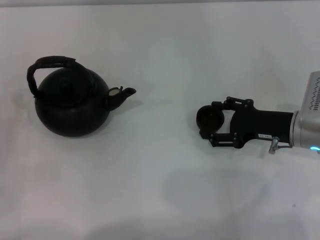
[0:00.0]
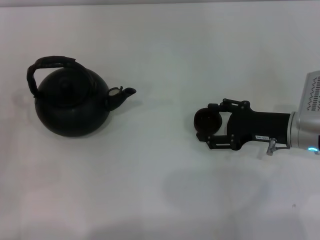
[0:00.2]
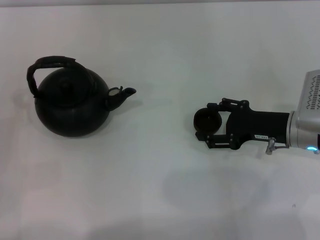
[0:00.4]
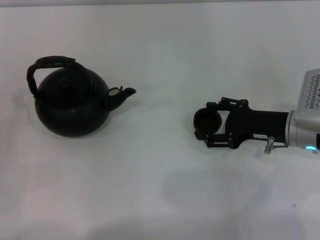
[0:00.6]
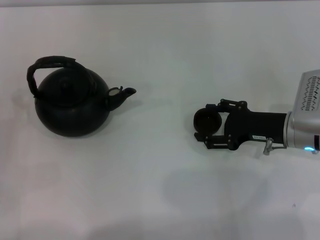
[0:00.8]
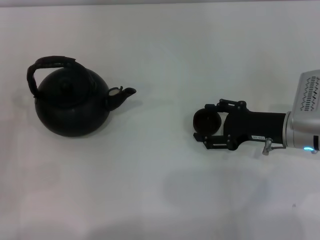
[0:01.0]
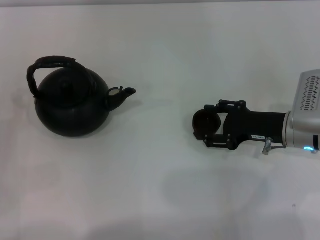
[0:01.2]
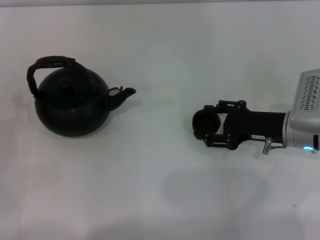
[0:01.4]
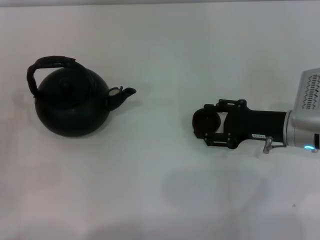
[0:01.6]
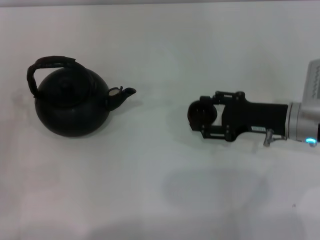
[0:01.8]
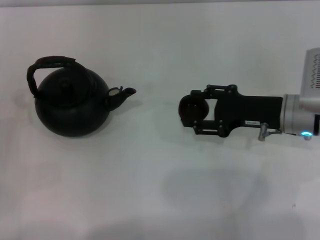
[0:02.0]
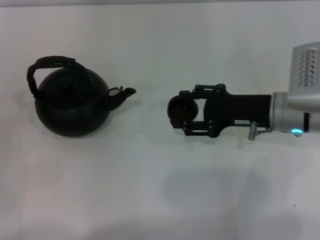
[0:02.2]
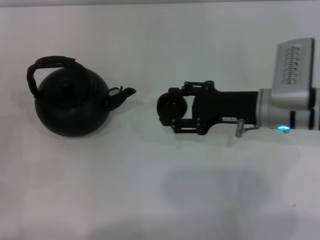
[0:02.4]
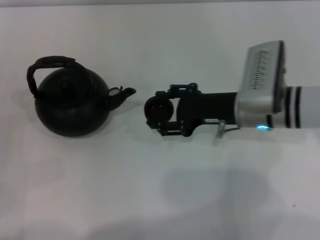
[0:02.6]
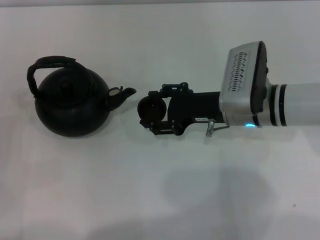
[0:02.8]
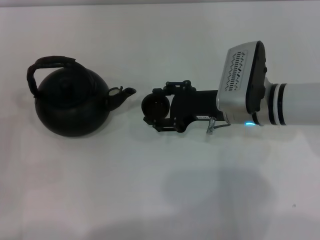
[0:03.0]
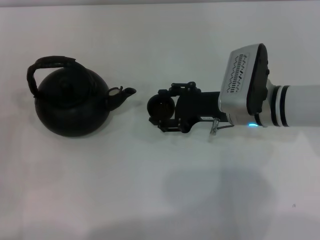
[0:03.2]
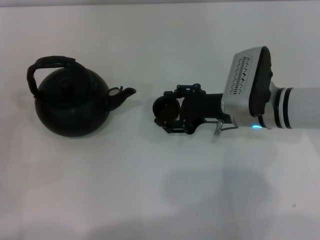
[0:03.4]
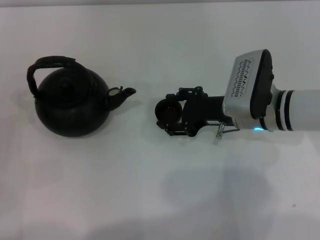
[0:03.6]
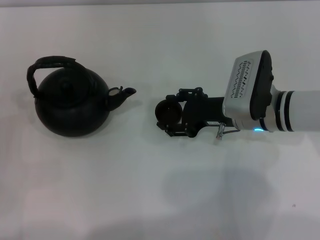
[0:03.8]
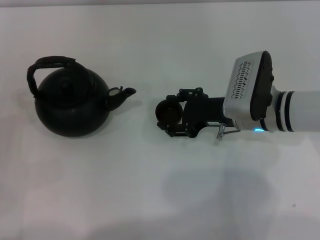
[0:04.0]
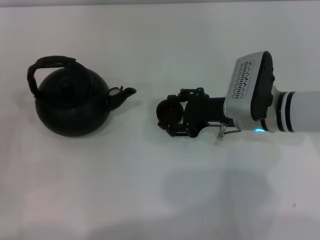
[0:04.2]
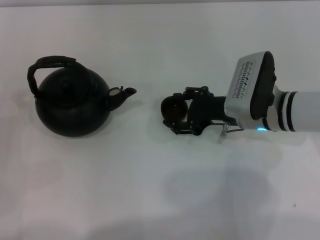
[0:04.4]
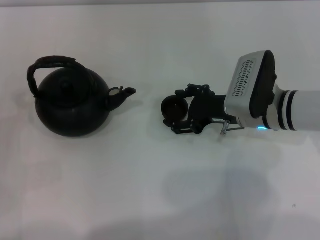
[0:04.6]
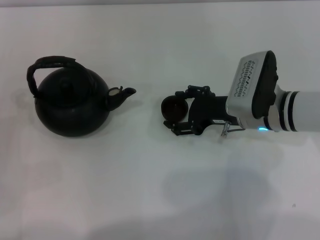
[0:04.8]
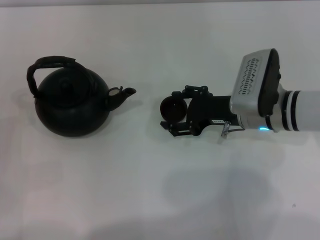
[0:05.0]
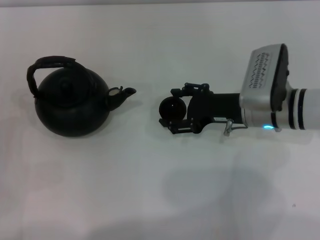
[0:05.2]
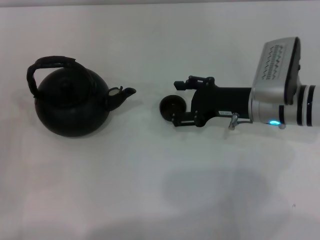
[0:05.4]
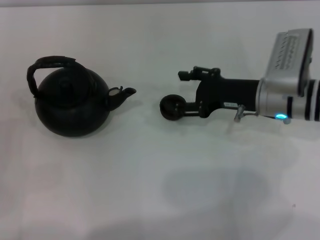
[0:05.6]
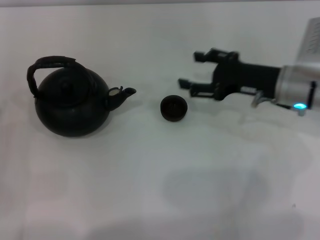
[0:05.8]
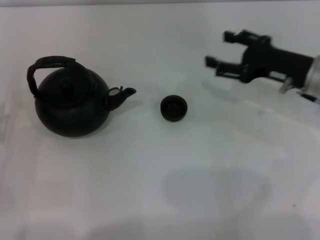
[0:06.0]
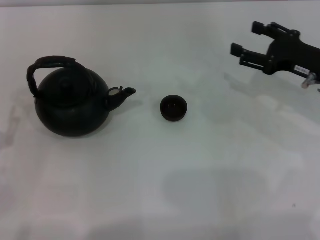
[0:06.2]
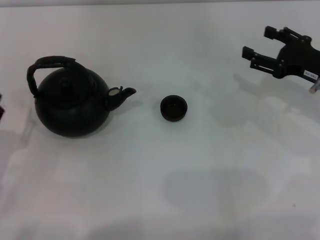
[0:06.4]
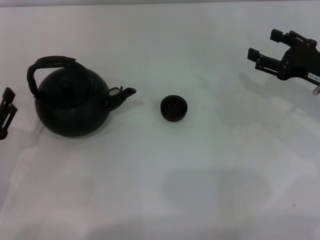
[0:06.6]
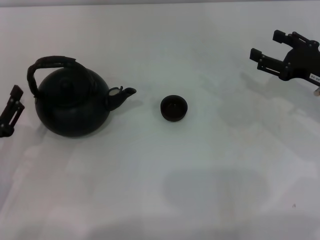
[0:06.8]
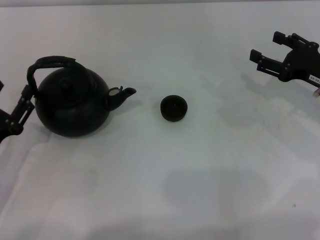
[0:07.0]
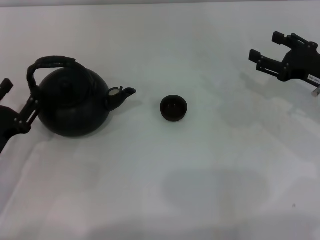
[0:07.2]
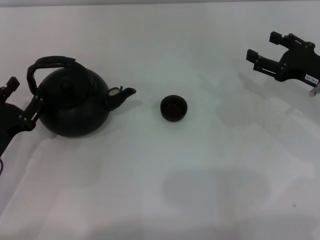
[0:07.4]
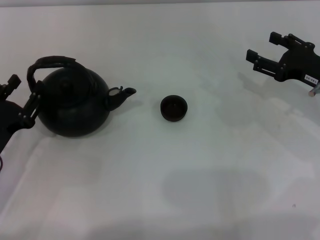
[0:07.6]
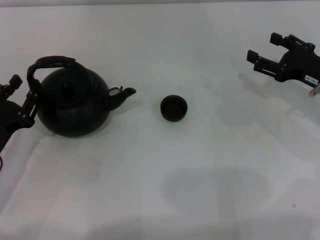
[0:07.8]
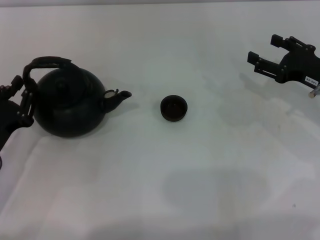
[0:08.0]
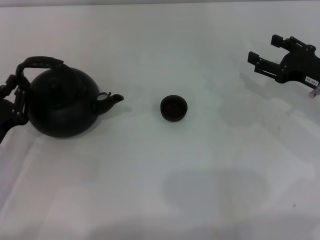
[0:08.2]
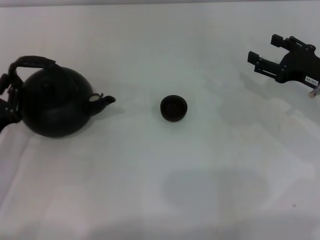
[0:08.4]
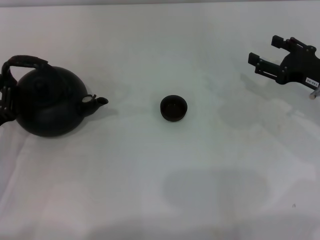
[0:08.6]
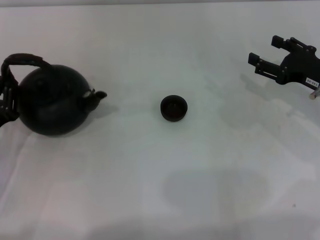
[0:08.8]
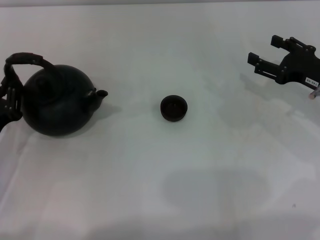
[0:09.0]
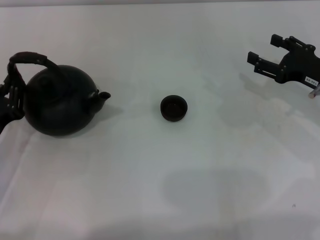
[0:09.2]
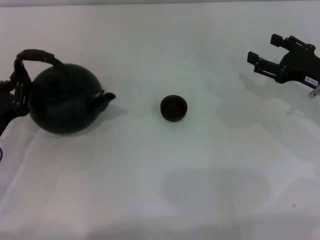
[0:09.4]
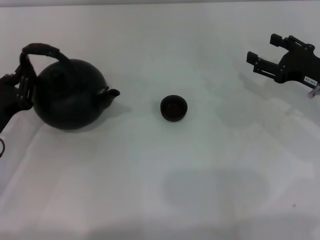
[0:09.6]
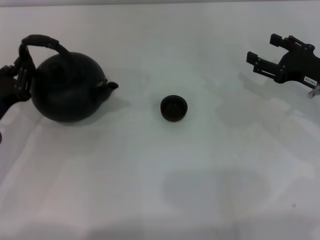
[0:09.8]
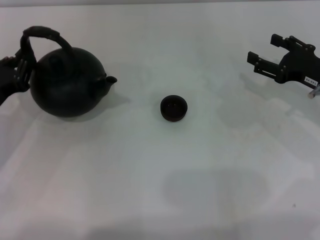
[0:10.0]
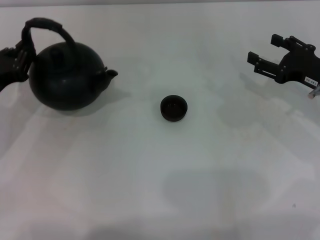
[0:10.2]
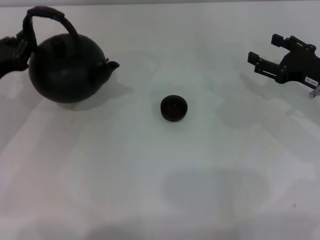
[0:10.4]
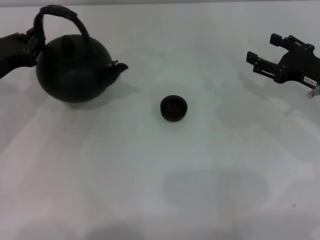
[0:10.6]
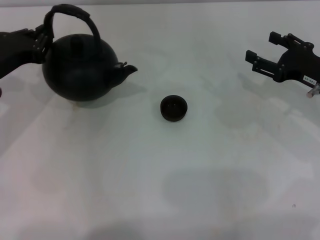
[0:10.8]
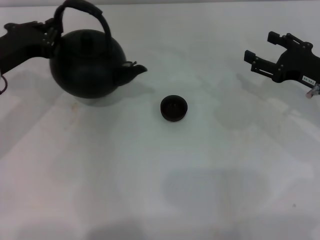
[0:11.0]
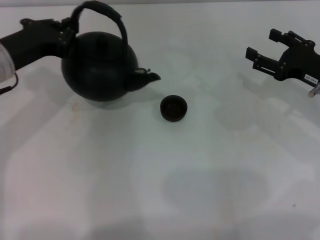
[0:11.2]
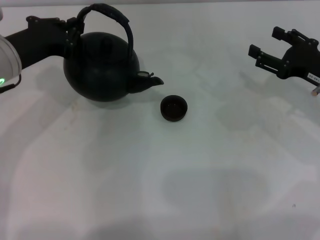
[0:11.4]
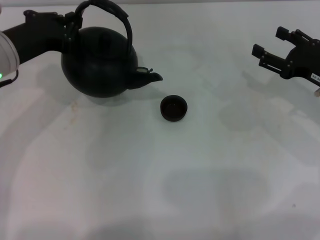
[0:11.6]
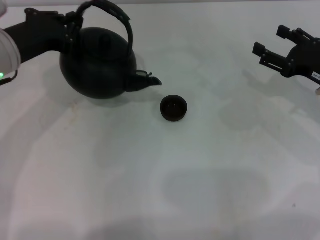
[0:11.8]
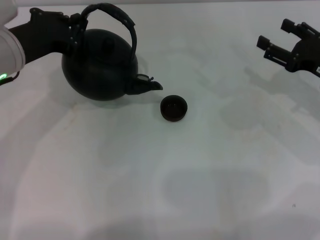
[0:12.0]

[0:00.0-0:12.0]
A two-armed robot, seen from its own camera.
Task of the whole recording: Grasp the handle of the teapot with one hand and pour tea into the teacup.
Step, 0:02.2 to 0:05.6: Place the teacup in the center of view with the right gripper.
Step, 0:05.8 to 0:11.0: Pick up the teapot with the left gripper.
0:00.0 to 0:01.6: The right gripper closes up.
0:01.6 to 0:03.0: The right gripper is displaced to the left by approximately 10 cm.
0:03.0 to 0:04.4: The grippers make only small movements.
0:04.4 to 0:06.0: The right gripper moves to the right, approximately 10 cm, and opens.
0:06.0 to 0:07.6: The right gripper moves approximately 5 cm; the left gripper changes place by roughly 5 cm.
0:07.6 to 0:09.0: The left gripper closes.
0:09.0 to 0:10.4: The left gripper goes approximately 10 cm forward and upward.
0:10.4 to 0:12.0: The left gripper heads to the right and upward, covering some 10 cm.

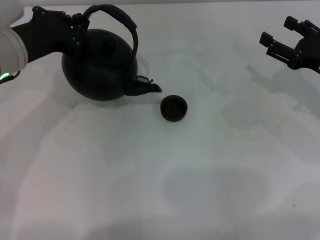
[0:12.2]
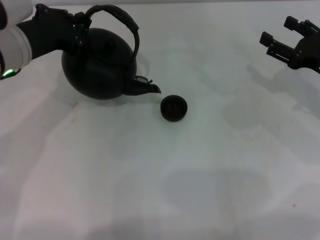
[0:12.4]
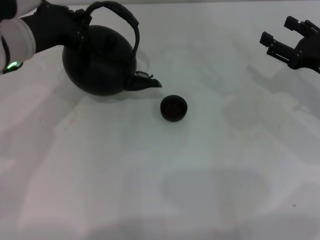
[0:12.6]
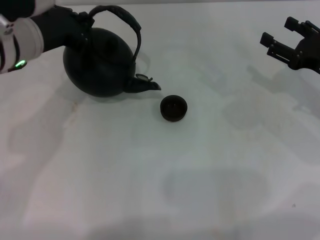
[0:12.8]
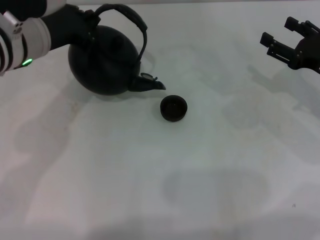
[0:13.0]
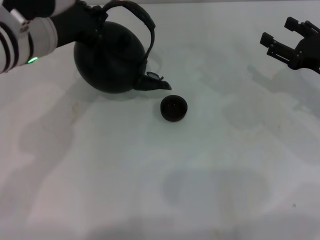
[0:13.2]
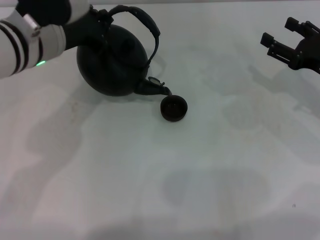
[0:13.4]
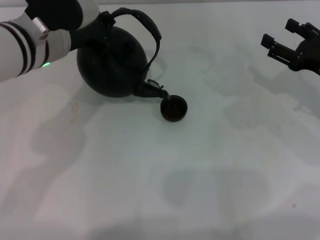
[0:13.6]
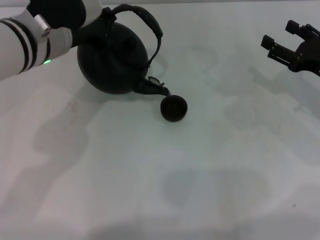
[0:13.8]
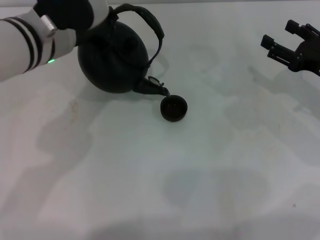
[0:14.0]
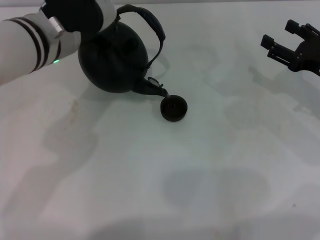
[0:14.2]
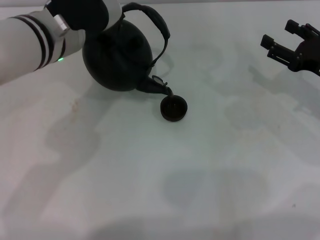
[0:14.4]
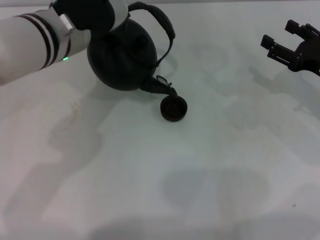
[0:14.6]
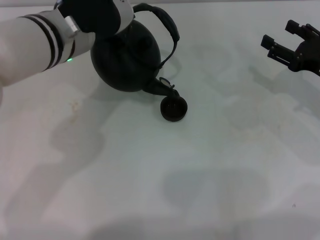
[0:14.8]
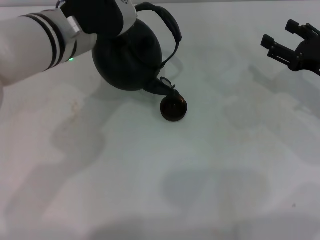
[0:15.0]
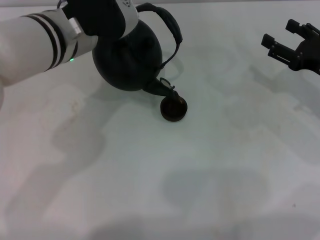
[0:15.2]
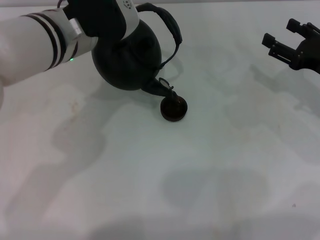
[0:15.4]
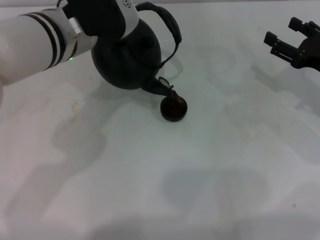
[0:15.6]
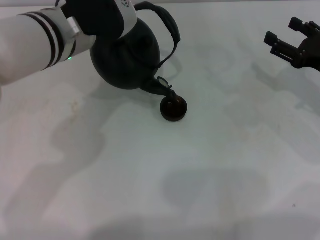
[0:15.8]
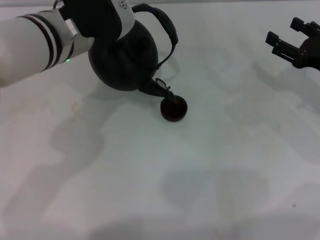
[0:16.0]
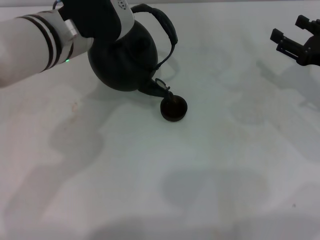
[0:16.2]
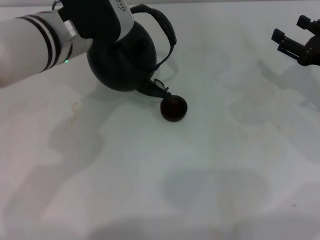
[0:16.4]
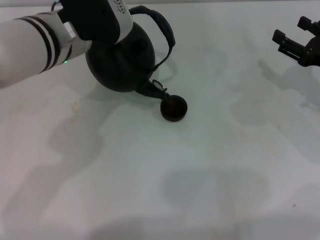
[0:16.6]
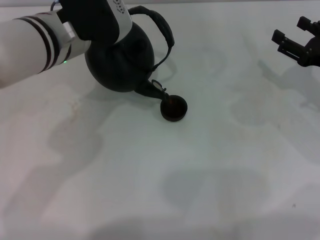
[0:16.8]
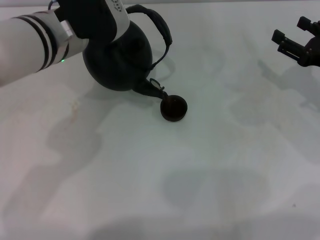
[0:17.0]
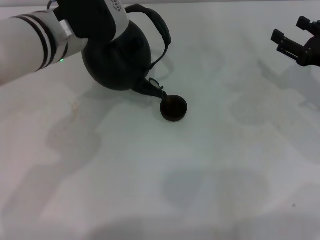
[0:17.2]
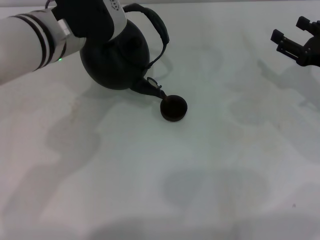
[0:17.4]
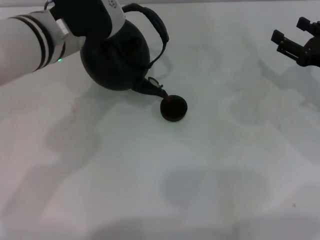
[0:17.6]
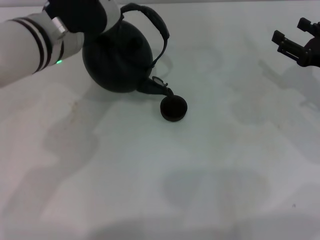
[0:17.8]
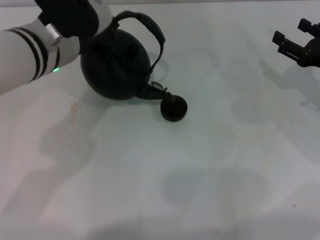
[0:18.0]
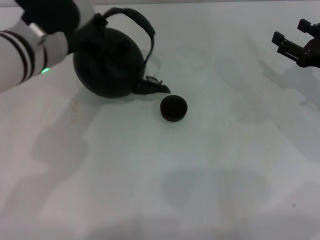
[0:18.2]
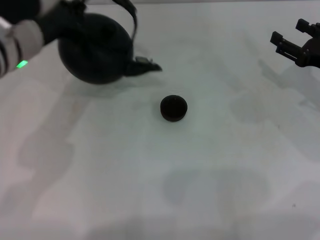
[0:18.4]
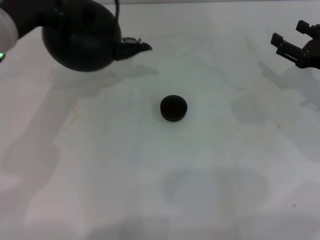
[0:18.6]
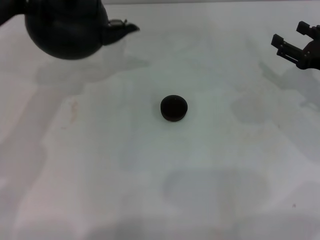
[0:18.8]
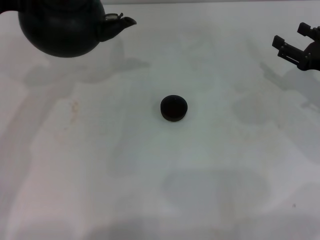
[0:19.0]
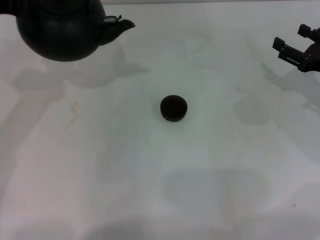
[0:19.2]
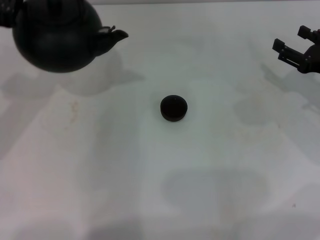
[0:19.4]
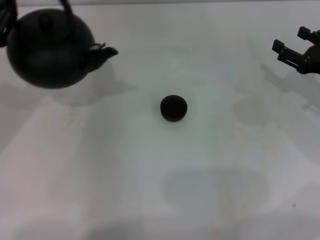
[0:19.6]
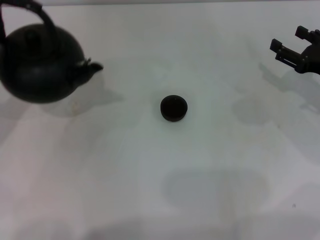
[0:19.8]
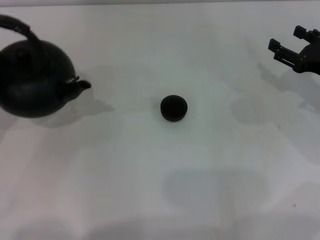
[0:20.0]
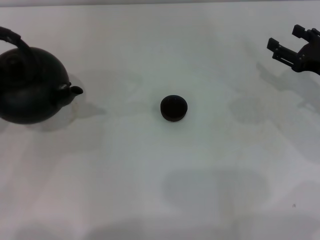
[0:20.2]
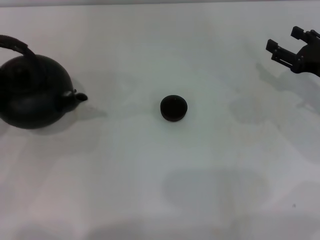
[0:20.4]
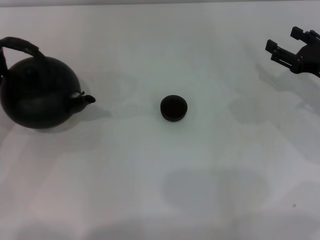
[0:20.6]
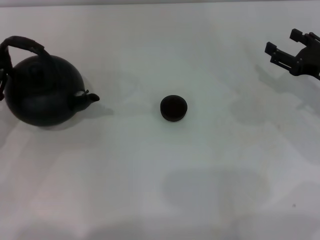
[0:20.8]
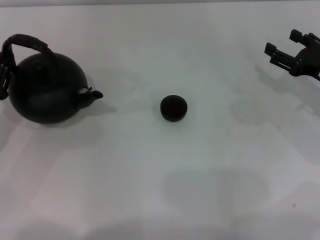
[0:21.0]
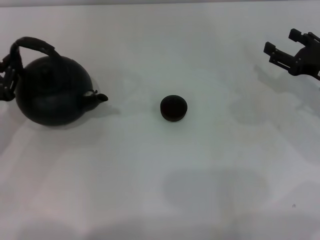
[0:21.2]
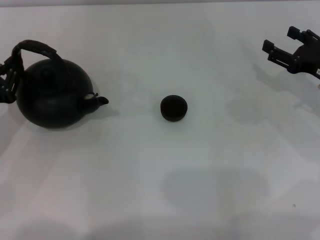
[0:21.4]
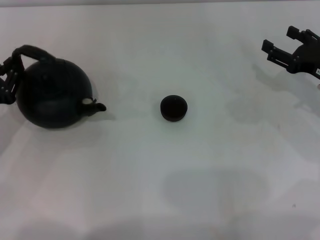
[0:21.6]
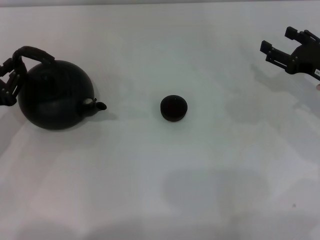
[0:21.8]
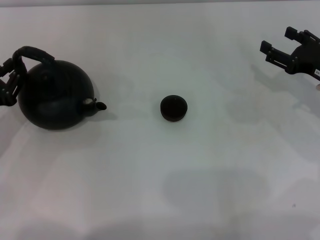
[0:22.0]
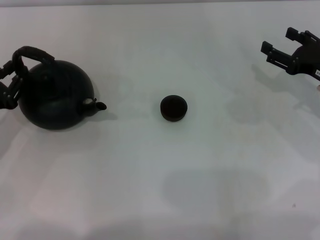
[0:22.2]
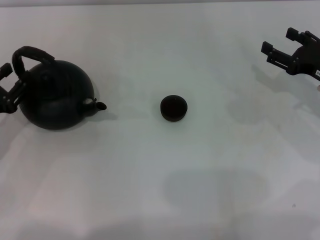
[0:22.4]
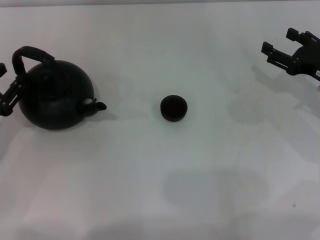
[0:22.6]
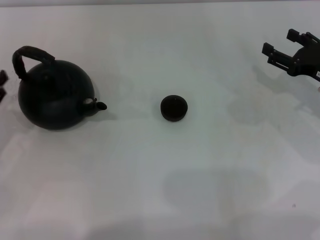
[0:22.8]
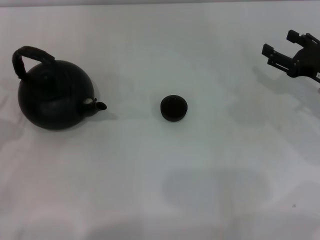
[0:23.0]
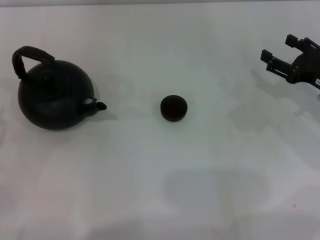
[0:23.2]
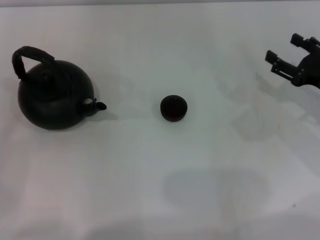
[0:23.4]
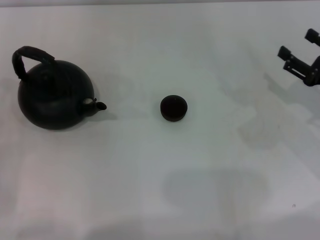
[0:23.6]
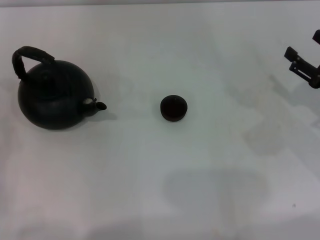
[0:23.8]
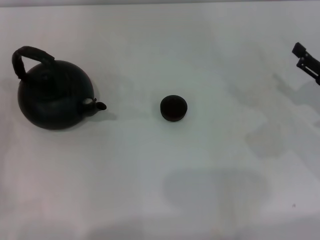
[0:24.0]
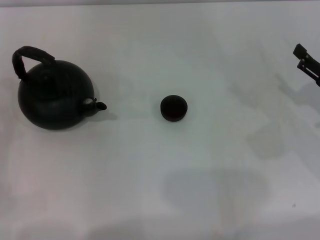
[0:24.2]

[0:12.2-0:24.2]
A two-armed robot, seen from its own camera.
Task of the whole recording: Grasp the handle of the teapot with one hand and pour tea into the teacup.
Step, 0:12.2 to 0:18.0: Pour tea into the teacup with the left gripper.
Step, 0:18.2 to 0:22.6: Put down the teapot with the left gripper.
0:12.2 to 0:13.8: The left gripper moves to the right, about 5 cm.
0:13.8 to 0:15.2: The grippers move only a little.
0:15.2 to 0:16.6: Neither gripper changes place.
0:16.6 to 0:18.2: There are only small adjustments of the grippers.
0:18.2 to 0:19.8: The left gripper moves to the left, roughly 15 cm.
0:19.8 to 0:21.2: The left gripper goes approximately 10 cm downward.
0:21.2 to 0:22.6: The left gripper opens up.
0:22.6 to 0:24.2: Both grippers travel together backward, roughly 5 cm.
